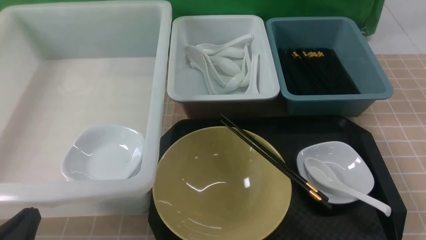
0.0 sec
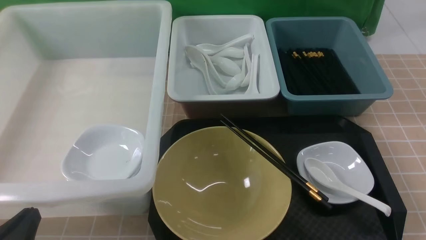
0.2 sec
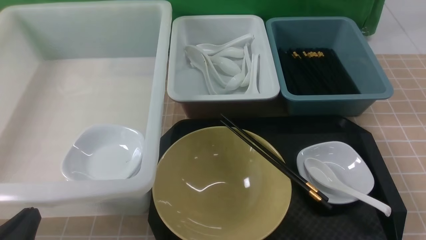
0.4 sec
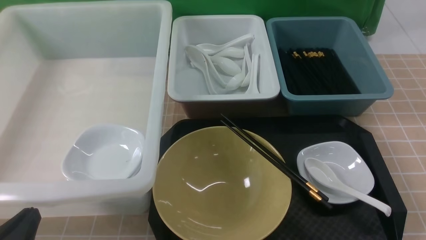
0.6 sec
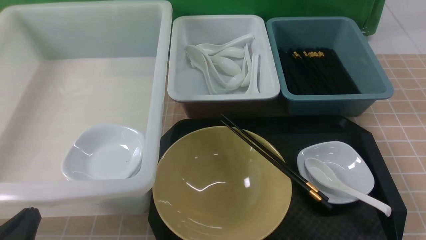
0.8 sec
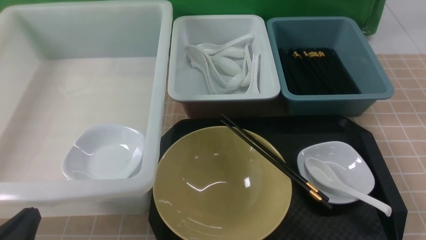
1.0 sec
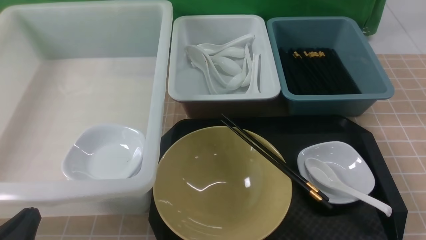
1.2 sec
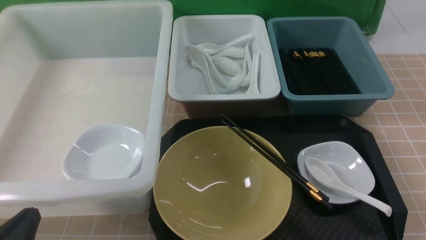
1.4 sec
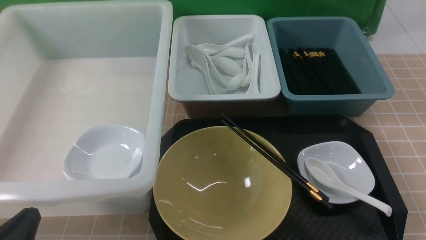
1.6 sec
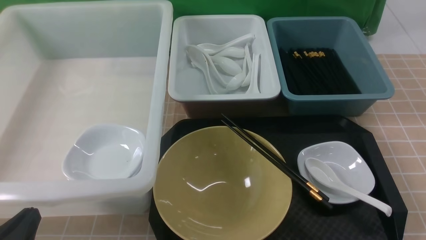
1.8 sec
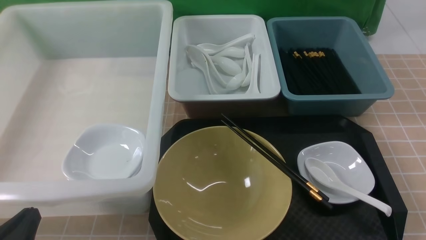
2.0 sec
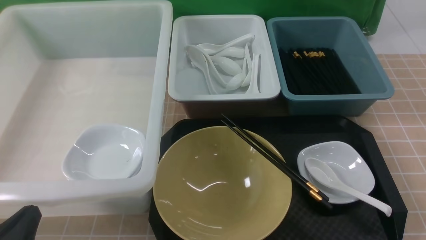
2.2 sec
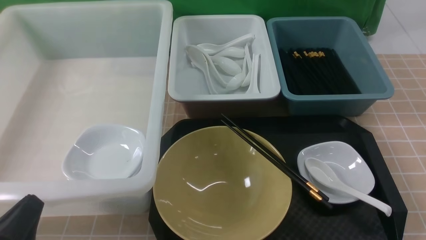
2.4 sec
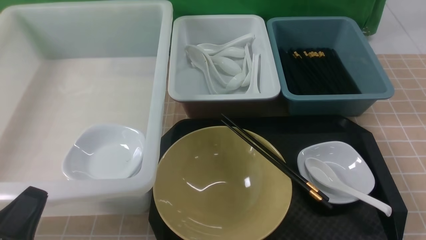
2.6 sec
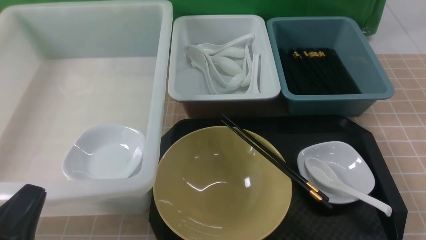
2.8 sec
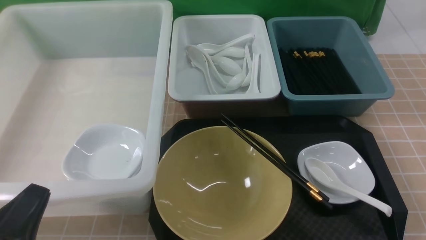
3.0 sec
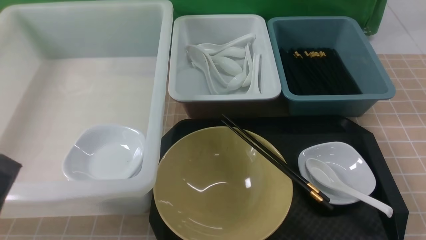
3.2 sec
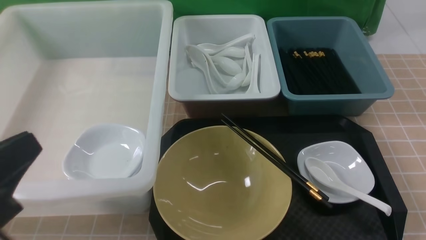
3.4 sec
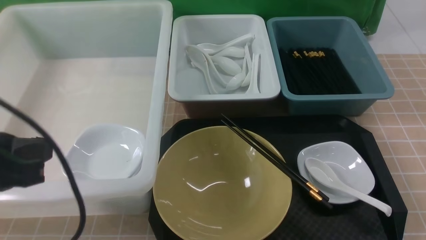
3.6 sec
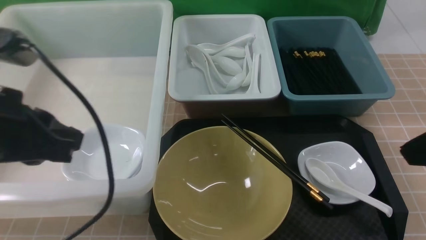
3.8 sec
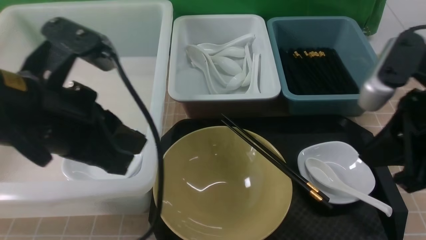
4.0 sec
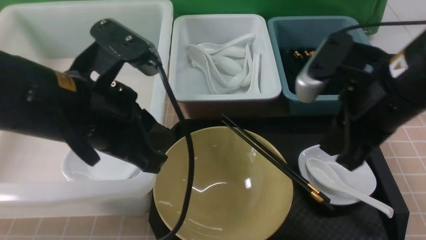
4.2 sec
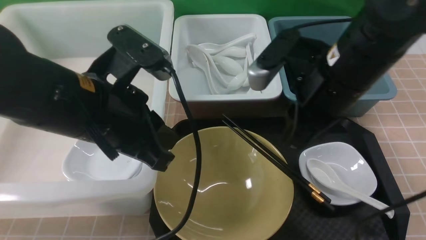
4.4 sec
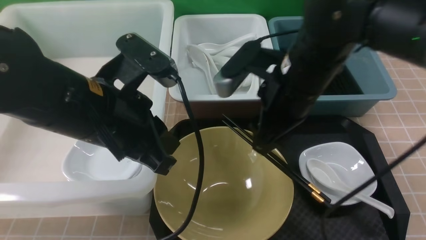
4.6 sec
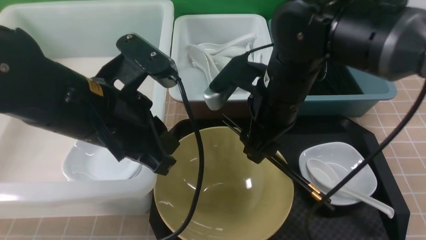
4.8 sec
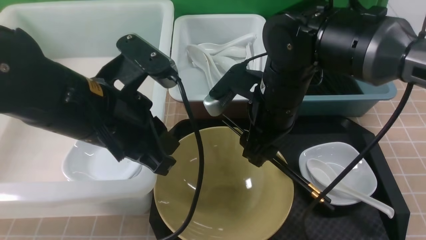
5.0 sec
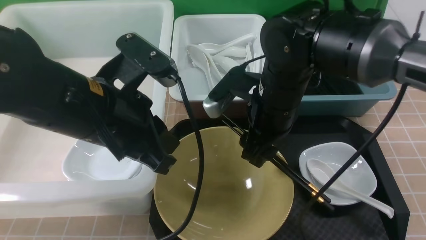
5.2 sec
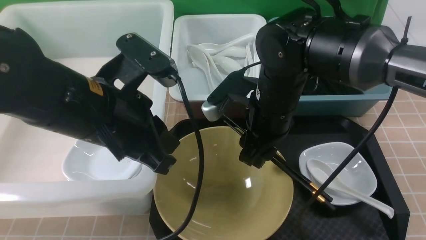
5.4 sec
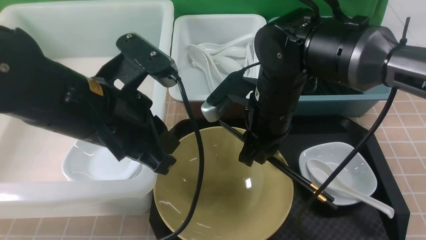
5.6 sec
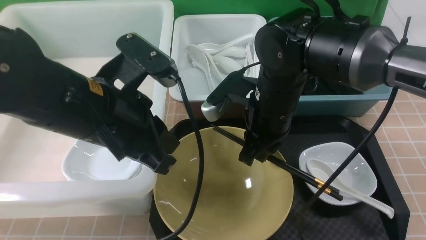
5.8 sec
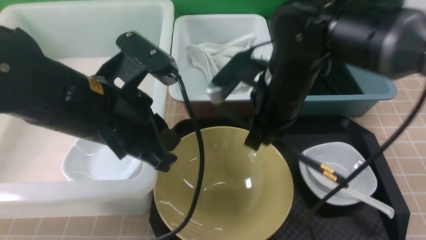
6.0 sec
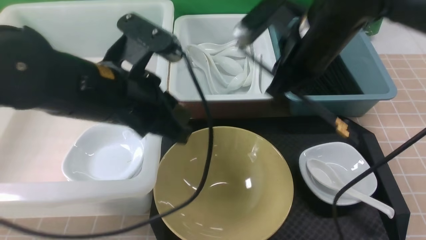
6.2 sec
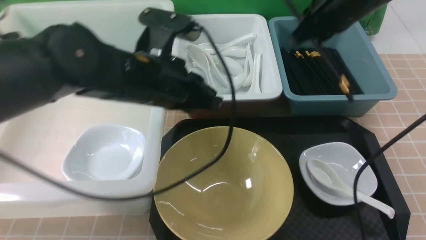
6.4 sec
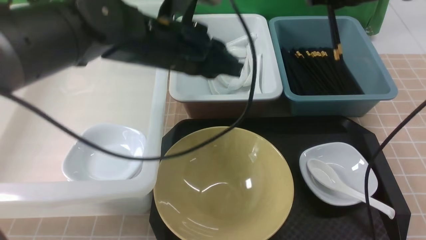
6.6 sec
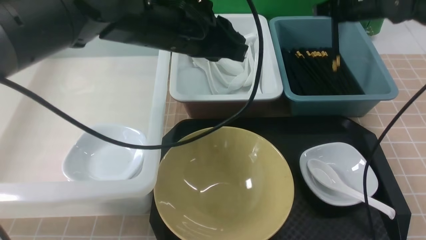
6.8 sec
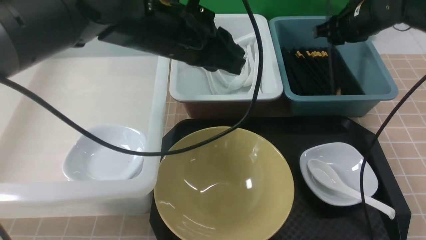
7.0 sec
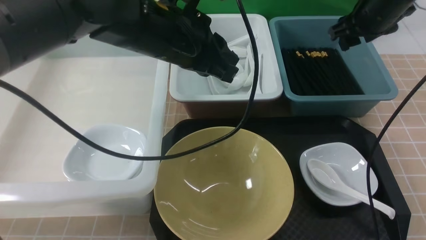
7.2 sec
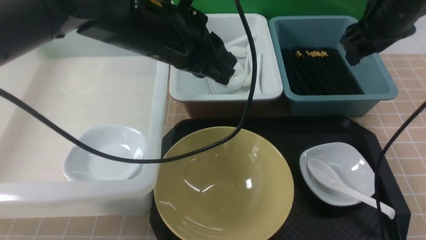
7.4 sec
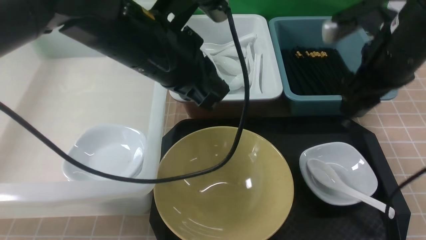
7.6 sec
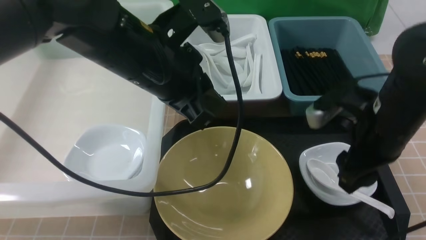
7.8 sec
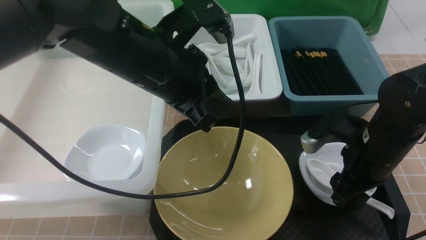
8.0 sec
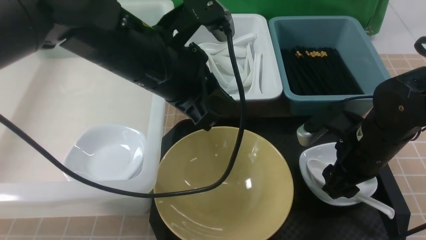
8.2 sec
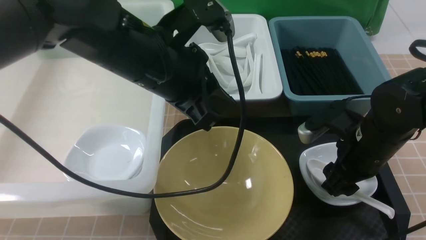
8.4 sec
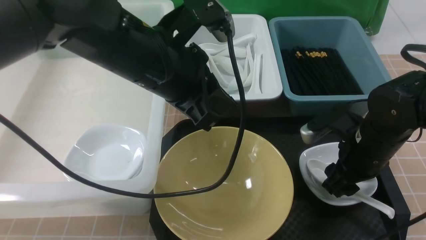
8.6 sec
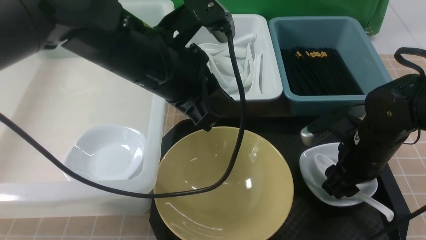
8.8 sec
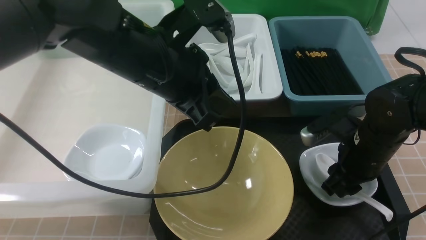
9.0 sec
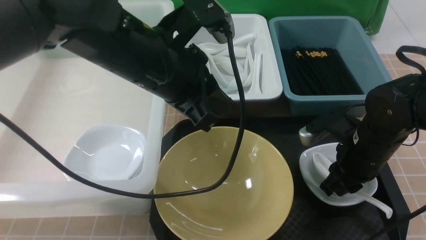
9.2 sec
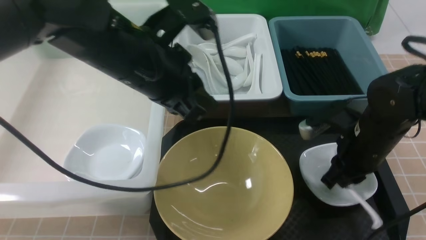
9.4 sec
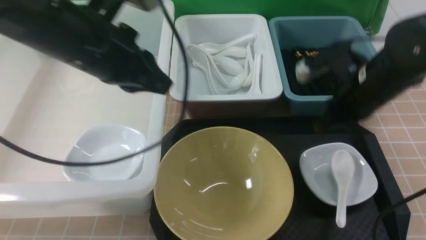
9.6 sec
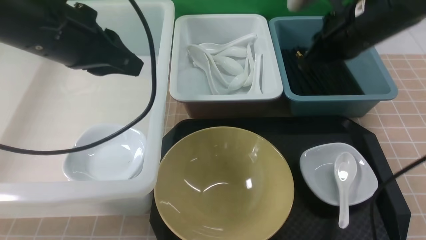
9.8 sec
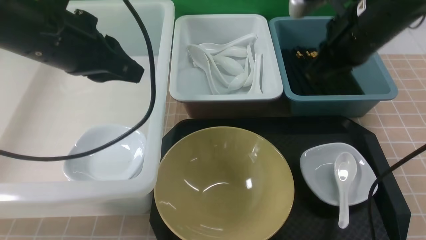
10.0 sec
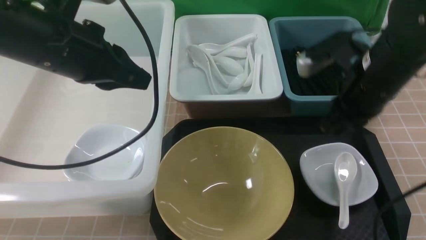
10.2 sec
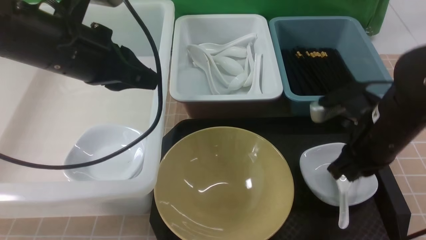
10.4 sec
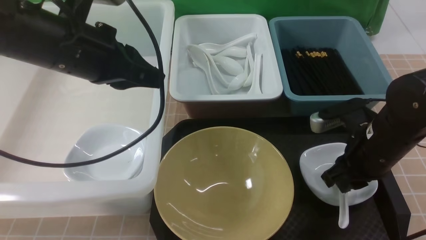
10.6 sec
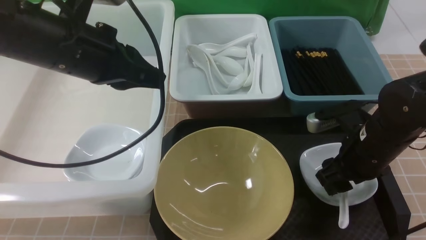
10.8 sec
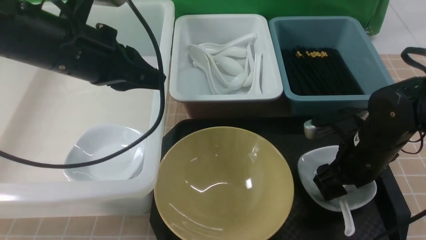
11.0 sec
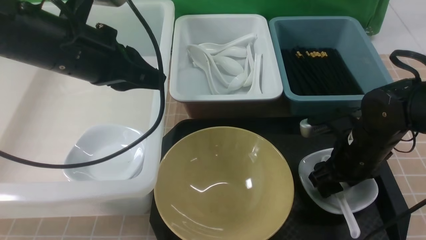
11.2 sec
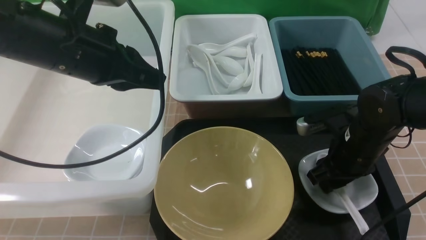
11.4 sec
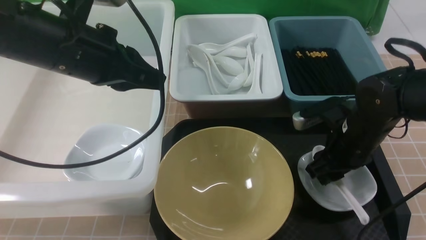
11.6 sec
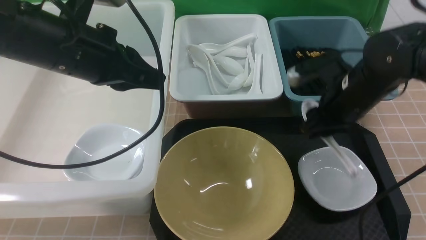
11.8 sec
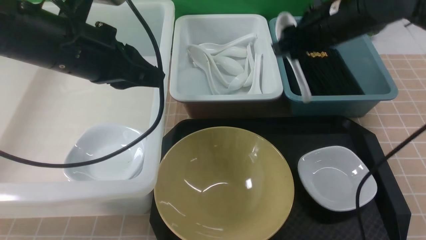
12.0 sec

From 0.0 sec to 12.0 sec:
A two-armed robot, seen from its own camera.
Task of the whole recording: on brown table put chopsticks spoon bowls plates into blue grey white boxes.
Step, from 0.0 sec to 6.0 sec: use the right arm to grab the chopsticks.
Step, from 6.2 sec to 7.2 sec: use the right arm to put the chopsticks into the small storage box on the right.
Step, from 7.4 sec to 11.4 sec: use the right arm to grab the soup spoon in the middle.
From 0.0 sec to 1.6 sec: Neither gripper changes place.
From 1.6 sec to 3.0 sec: The left gripper is displaced upward by some 5 cm.
From 3.0 sec to 4.4 sec: The right gripper goes roughly 30 cm forward, to the left and upward, and closes and opens again, while the left gripper is displaced forward, to the right and upward by some 20 cm.
From 4.4 sec to 6.0 sec: The right gripper moves forward, roughly 5 cm, and opens and closes again.
From 6.0 sec to 7.6 sec: The right gripper is displaced to the right by approximately 10 cm, and opens its fingers; the left gripper travels forward by roughly 5 cm.
From 7.6 sec to 9.0 sec: The right gripper travels downward by approximately 10 cm.
From 9.0 sec to 10.4 sec: The right gripper heads upward, covering roughly 5 cm, and closes its fingers. The left gripper heads to the left, covering some 10 cm.
From 10.4 sec to 12.0 sec: The right gripper heads forward, upward and to the left, covering about 15 cm, and opens.

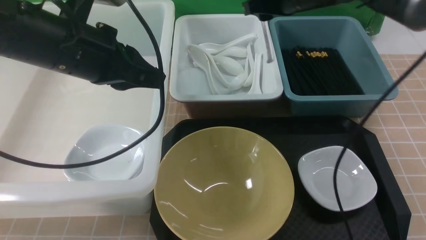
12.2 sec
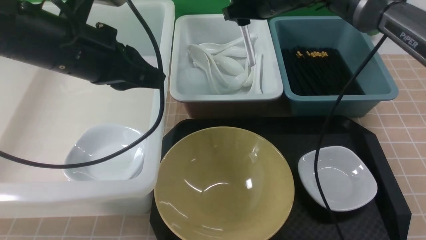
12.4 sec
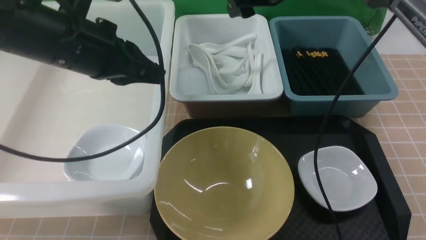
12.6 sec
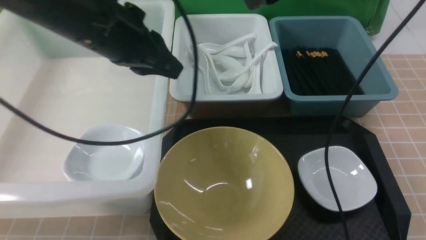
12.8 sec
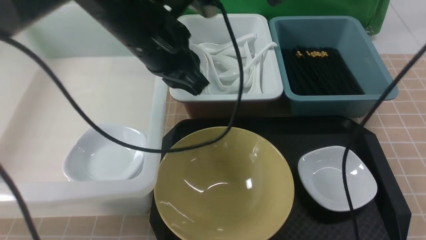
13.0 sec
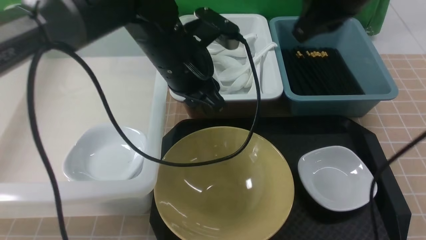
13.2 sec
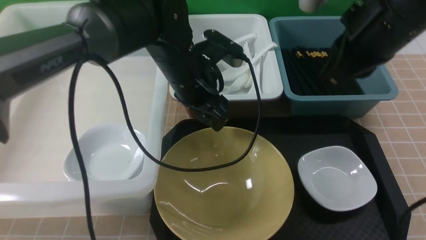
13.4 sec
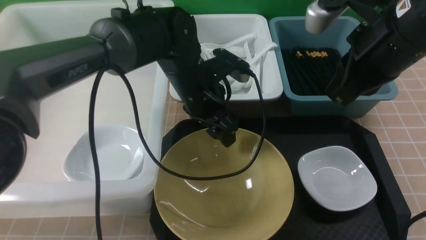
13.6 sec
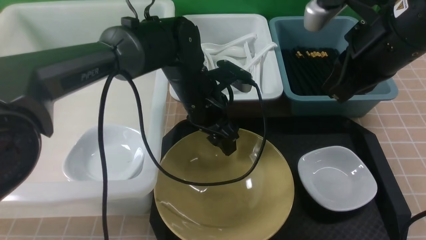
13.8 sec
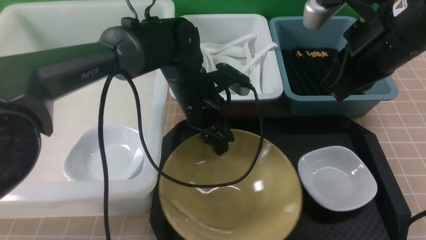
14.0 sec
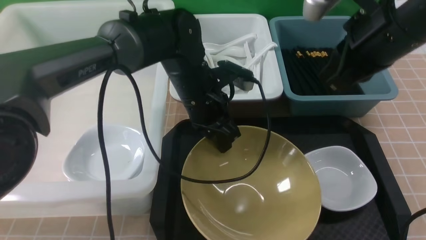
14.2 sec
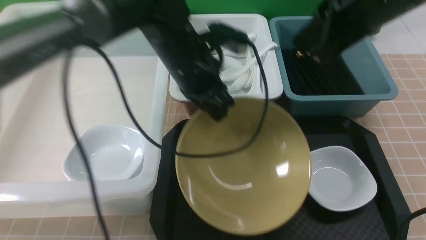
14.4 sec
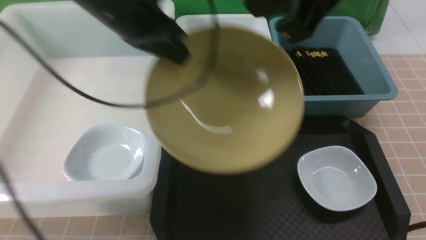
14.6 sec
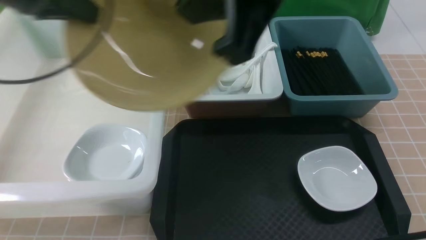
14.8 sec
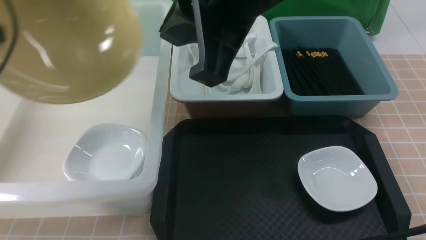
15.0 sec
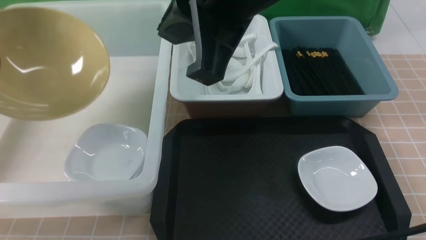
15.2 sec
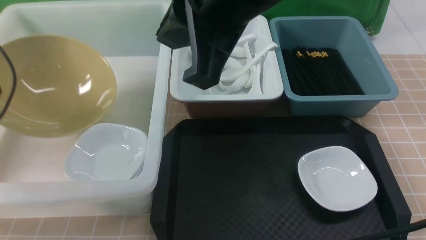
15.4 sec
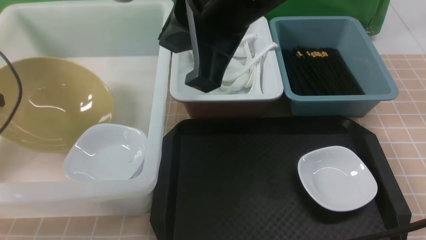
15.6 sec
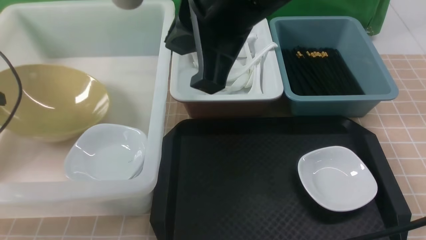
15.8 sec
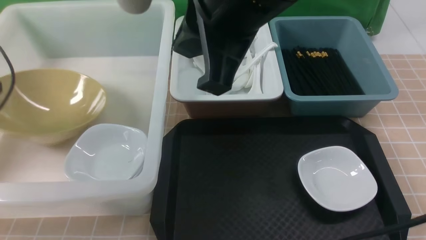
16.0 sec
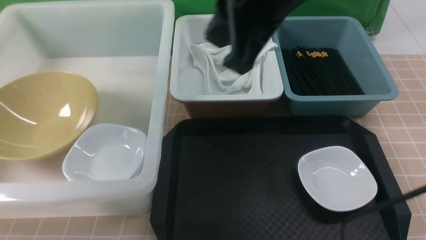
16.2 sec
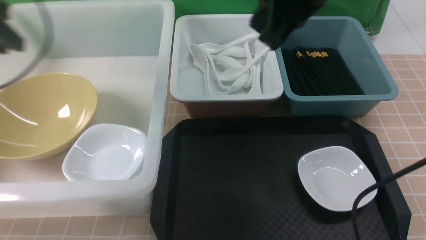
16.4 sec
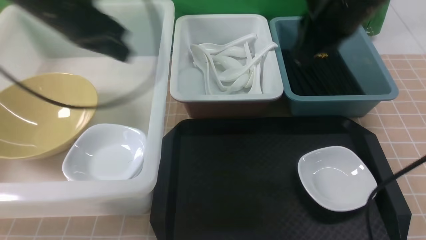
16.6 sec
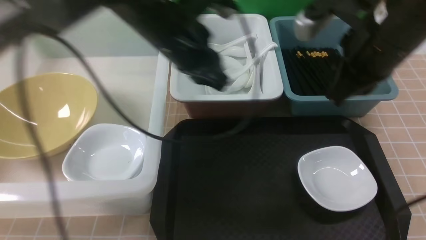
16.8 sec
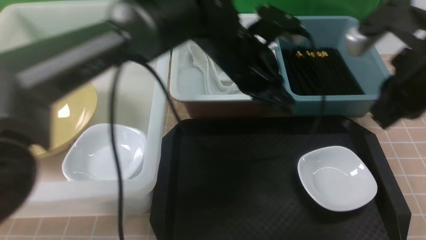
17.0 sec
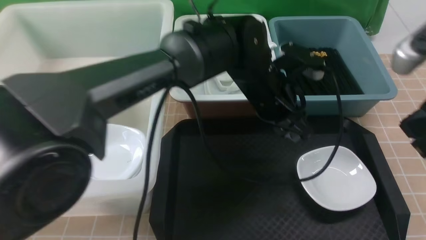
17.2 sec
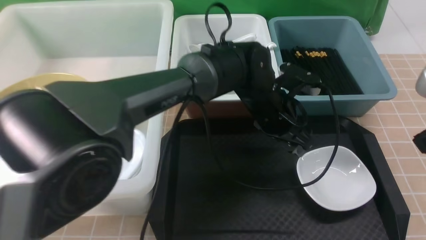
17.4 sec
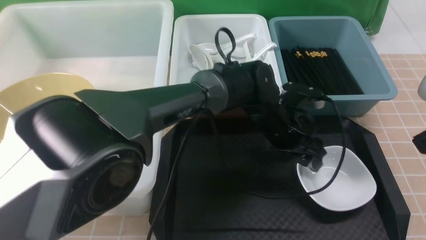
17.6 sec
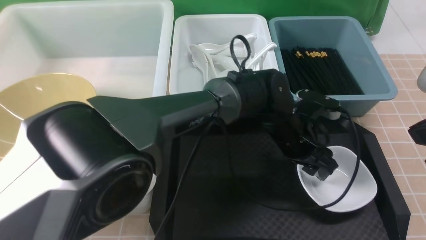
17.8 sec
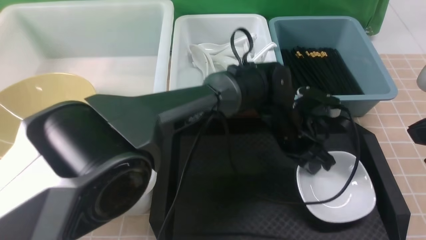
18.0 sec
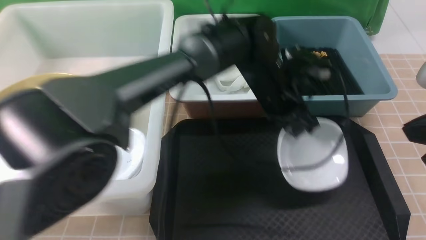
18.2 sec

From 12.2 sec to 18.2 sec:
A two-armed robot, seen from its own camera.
Task of the whole recording: on brown table put chopsticks spoon bowls plates into blue grey white boxes.
Step, from 12.8 sec to 14.4 sec: use the left arm to grab the yellow noodle bowl on the left.
Step, from 14.6 sec to 16.2 sec: use the left arm to put the noodle bowl into the large storage box on the left.
Step, from 16.4 sec to 18.2 sec: use the left arm to grab the plate.
From 12.2 sec to 13.8 sec: The left gripper shifts some 20 cm to the right, downward and forward, and opens its fingers. Meanwhile the right gripper travels backward by roughly 15 cm, and closes its fingers.
From 13.8 sec to 15.2 sec: The left gripper moves to the left, approximately 35 cm, and closes up; the right gripper travels to the left and upward by some 20 cm.
From 15.2 sec to 16.6 sec: The right gripper heads to the right, forward and downward, covering roughly 15 cm. The left gripper goes approximately 25 cm to the right, and opens and closes again.
From 16.6 sec to 18.2 sec: The right gripper moves backward and to the right, about 15 cm, while the left gripper heads to the right, covering roughly 25 cm, and opens and closes again.
